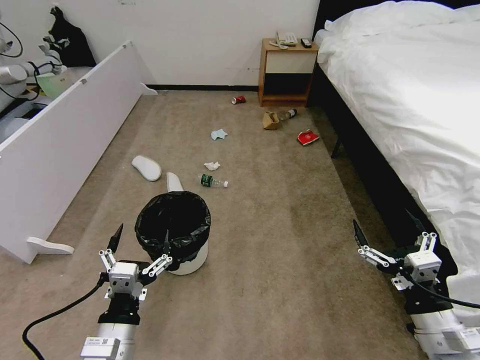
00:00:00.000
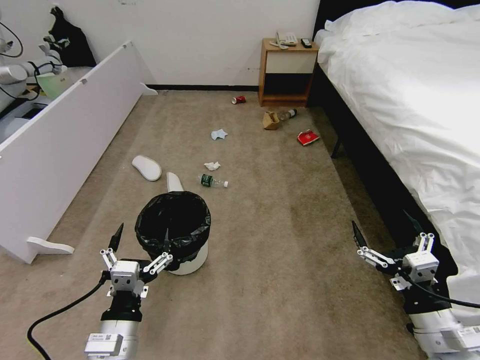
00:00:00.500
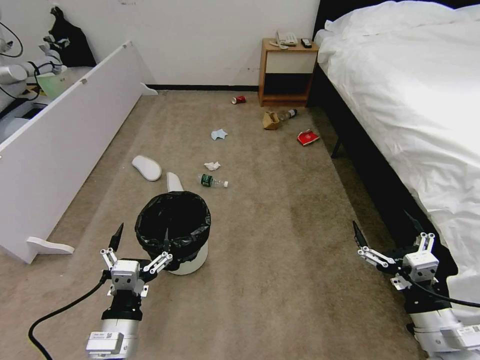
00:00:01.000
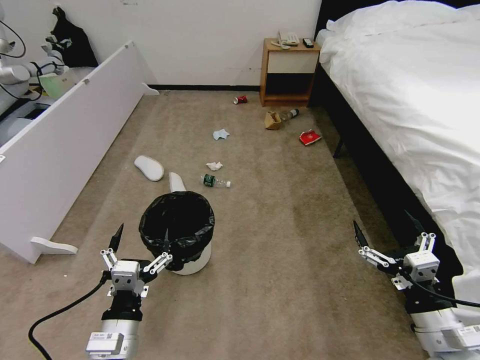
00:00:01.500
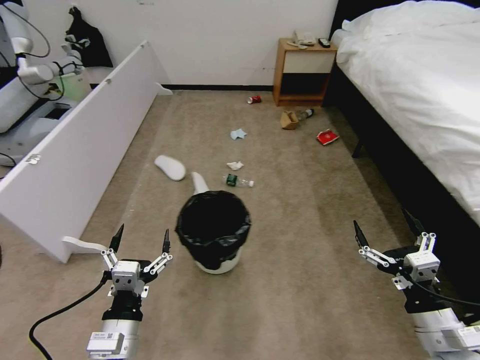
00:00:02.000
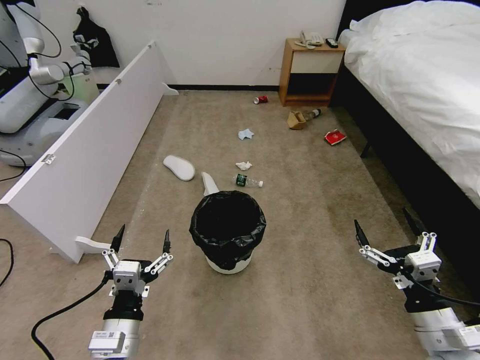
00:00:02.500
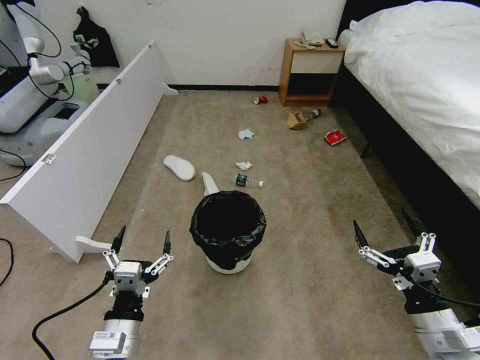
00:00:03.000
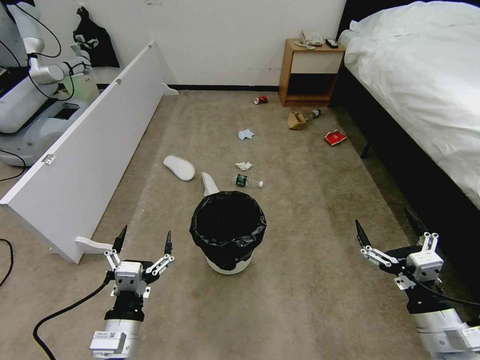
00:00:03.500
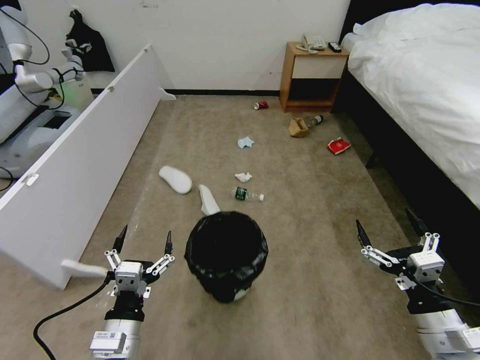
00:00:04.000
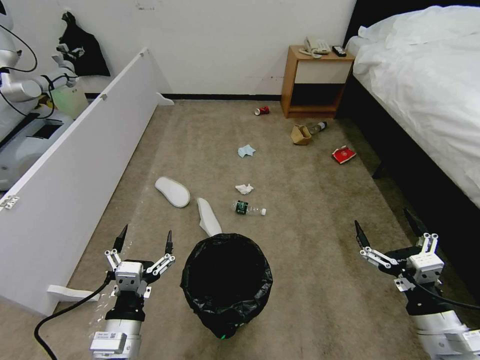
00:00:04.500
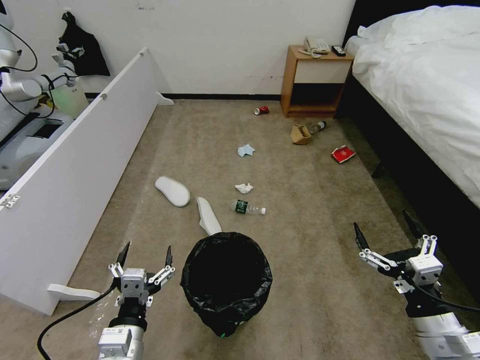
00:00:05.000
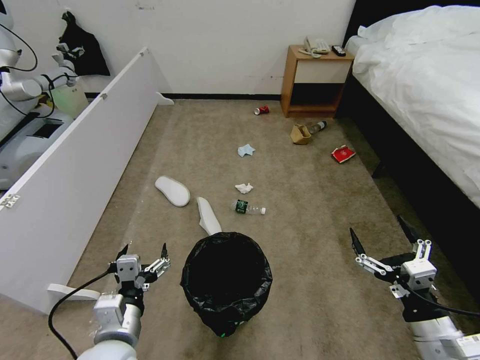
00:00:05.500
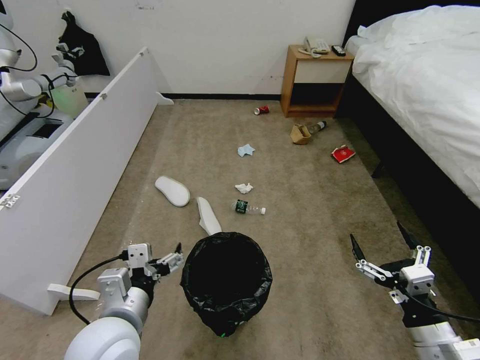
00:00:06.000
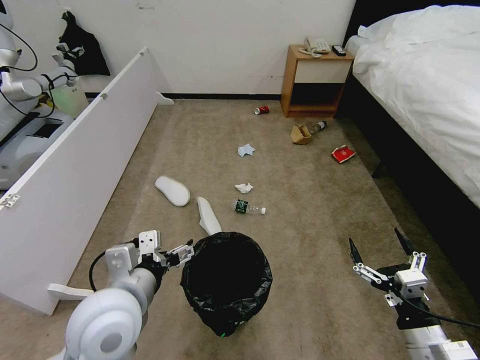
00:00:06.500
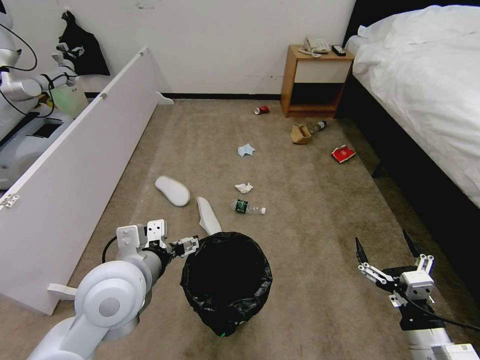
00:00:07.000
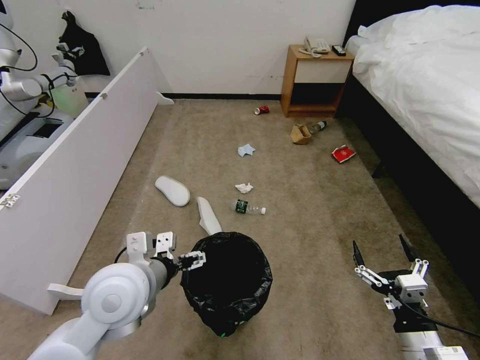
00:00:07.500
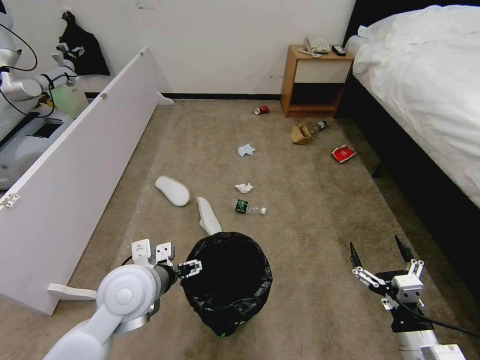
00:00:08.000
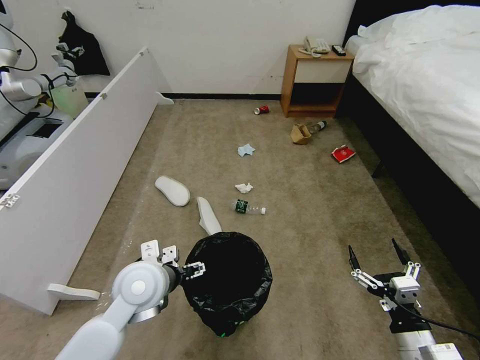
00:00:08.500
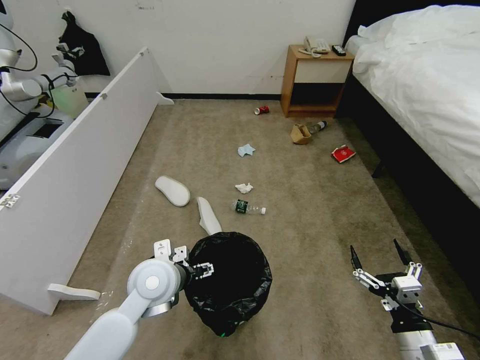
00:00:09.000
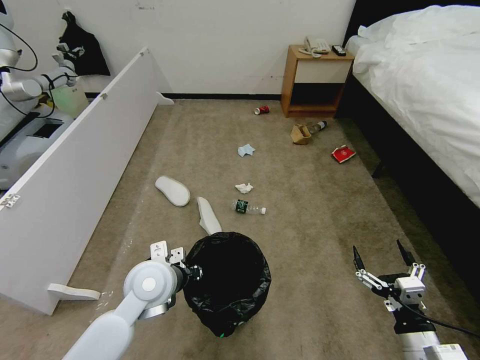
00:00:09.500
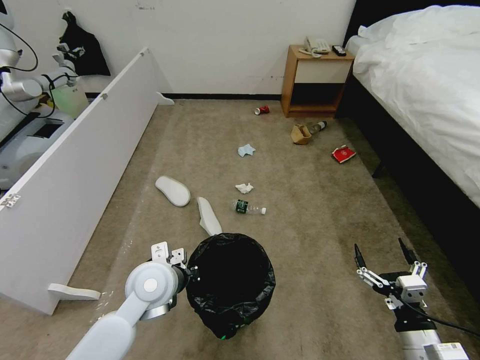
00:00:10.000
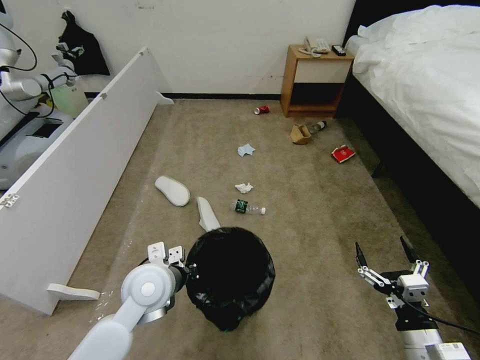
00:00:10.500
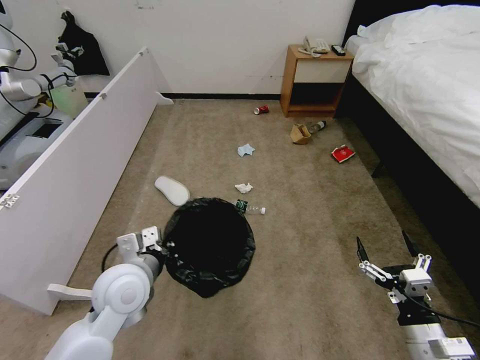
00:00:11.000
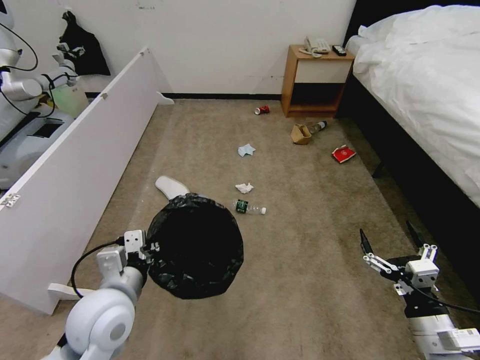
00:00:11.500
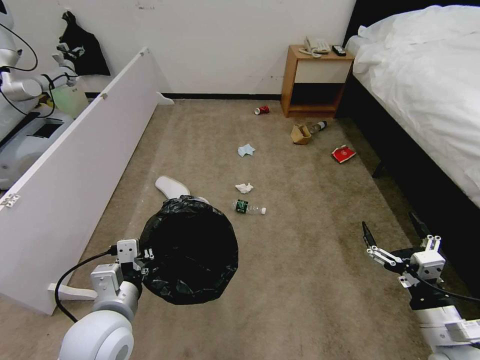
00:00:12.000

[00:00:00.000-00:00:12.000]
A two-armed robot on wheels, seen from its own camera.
Task of the whole recording: Pick up the trash bin, then pick up the garbage from the floor and place it into the trash bin.
00:00:04.000 to 00:00:06.000: The left gripper is displaced upward by approximately 10 cm.
00:00:06.000 to 00:00:08.000: The left gripper travels forward by some 10 cm.
00:00:08.000 to 00:00:10.000: The left gripper shifts by some 5 cm, and closes.
00:00:10.000 to 00:00:12.000: The right gripper travels upward by some 5 cm. The left gripper goes roughly 10 cm backward.

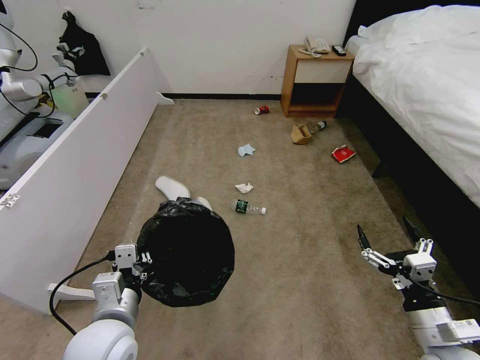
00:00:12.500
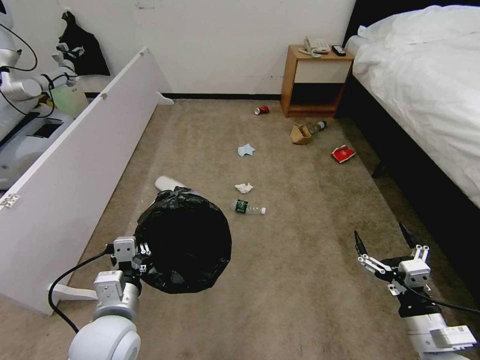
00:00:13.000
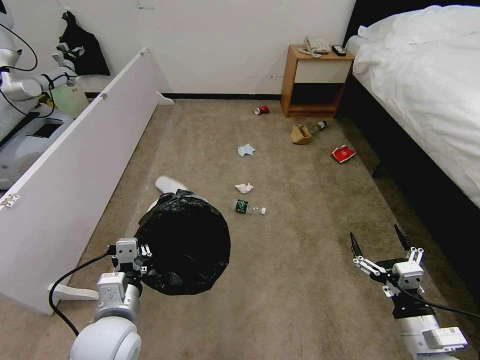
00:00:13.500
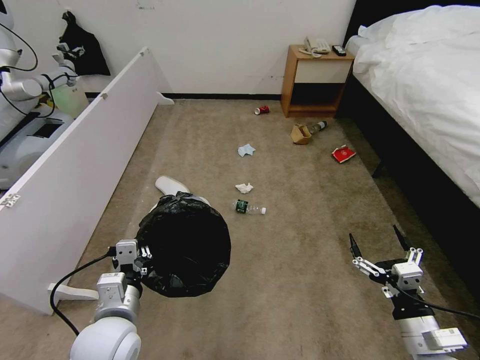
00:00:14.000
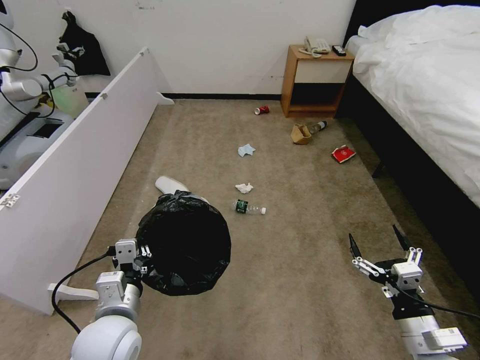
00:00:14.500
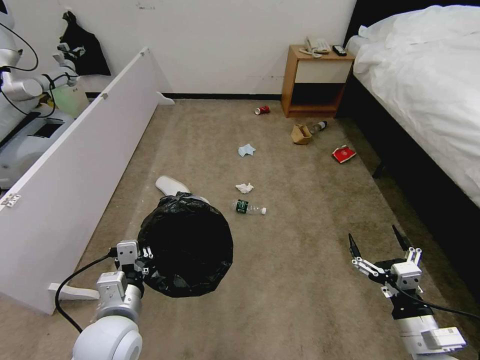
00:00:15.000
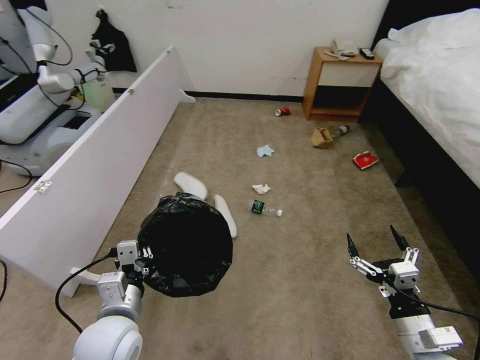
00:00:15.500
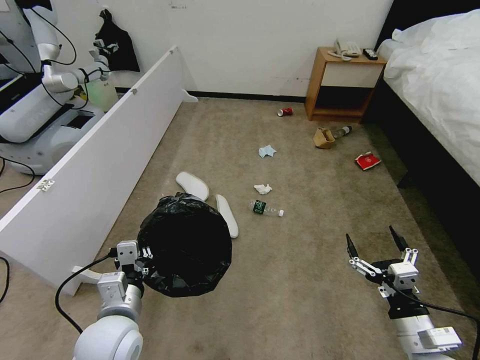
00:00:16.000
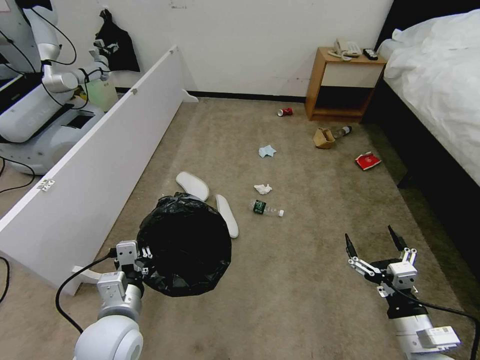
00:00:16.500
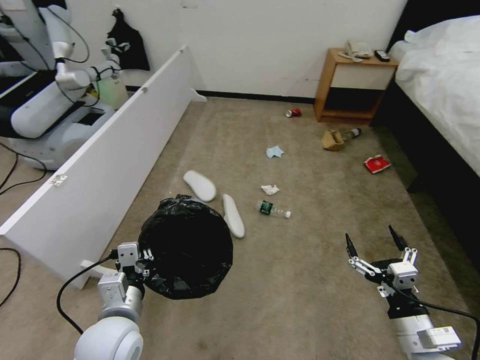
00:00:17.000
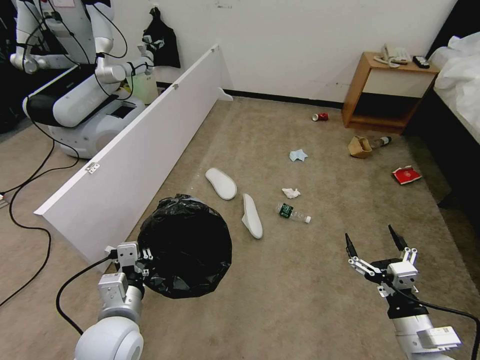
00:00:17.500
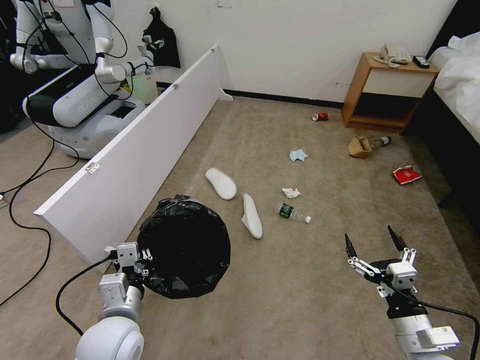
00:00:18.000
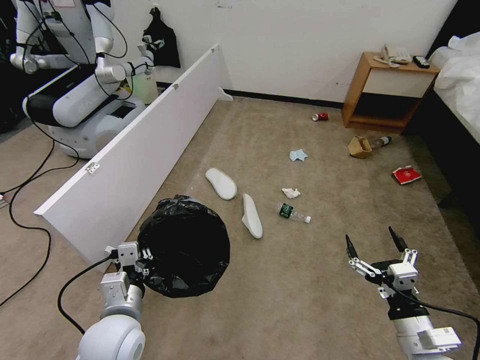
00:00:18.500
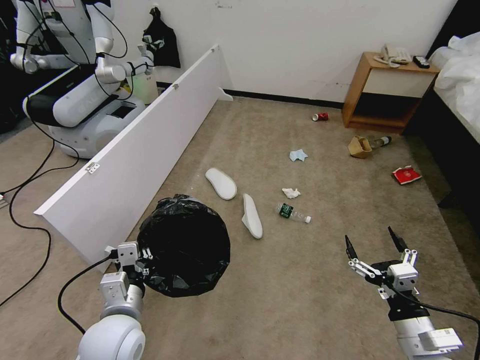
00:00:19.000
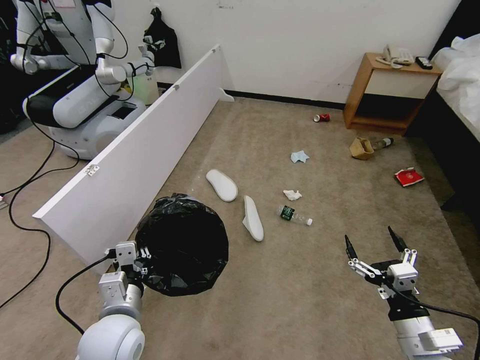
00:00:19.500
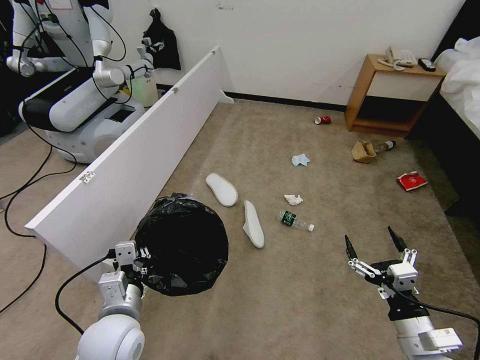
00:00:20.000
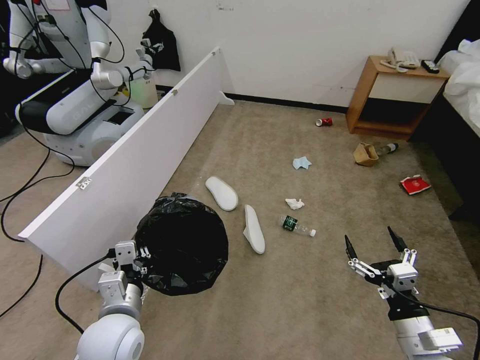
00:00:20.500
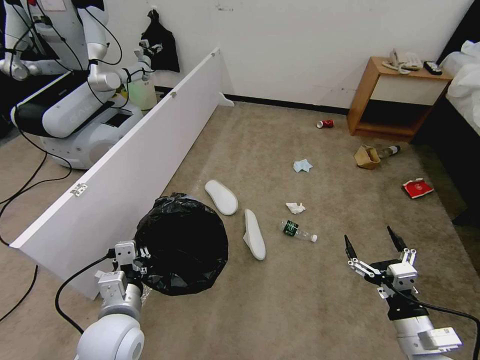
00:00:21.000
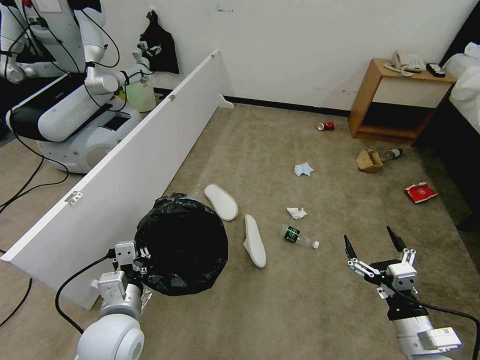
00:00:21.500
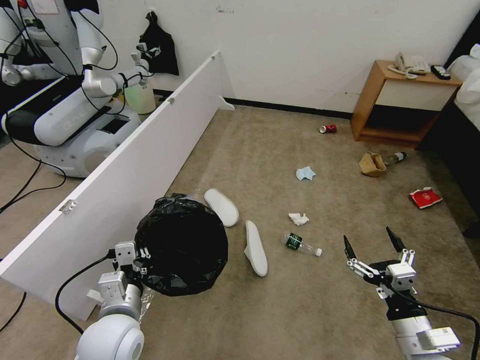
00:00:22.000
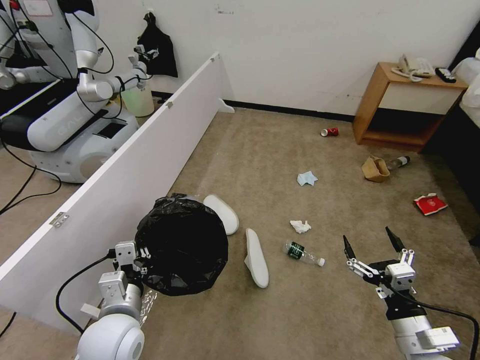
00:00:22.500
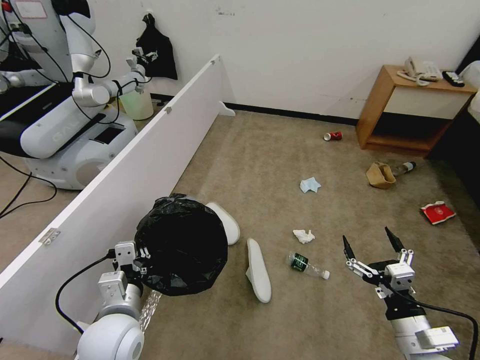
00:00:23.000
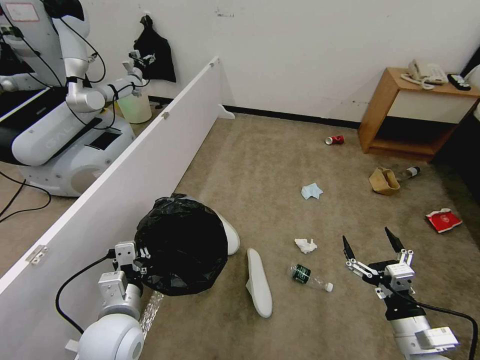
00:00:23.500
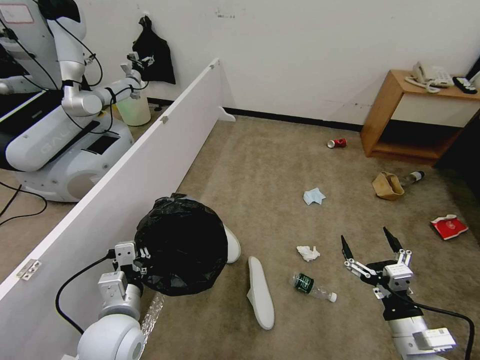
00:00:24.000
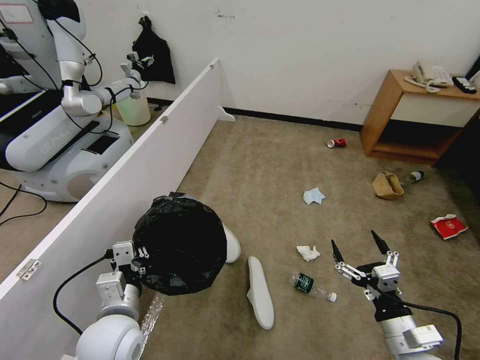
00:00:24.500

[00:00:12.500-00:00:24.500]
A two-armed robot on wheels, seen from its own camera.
Task of the whole recording: Pick up the trash bin, then pick up the garbage from the floor and place it into the trash bin.
00:00:12.500 to 00:00:14.500: The grippers move only a little.
00:00:18.500 to 00:00:20.500: Neither gripper changes place.

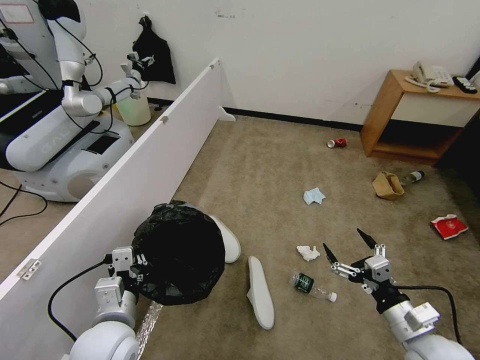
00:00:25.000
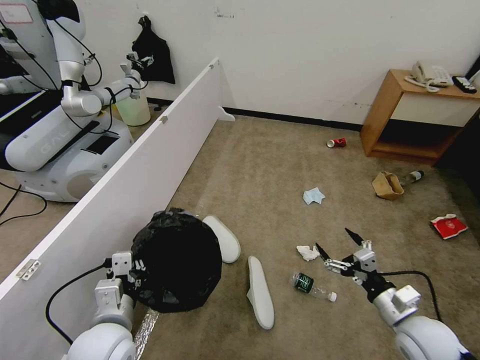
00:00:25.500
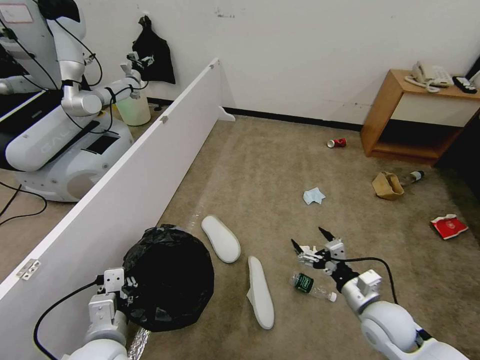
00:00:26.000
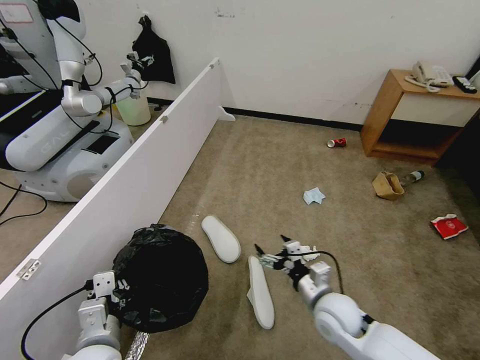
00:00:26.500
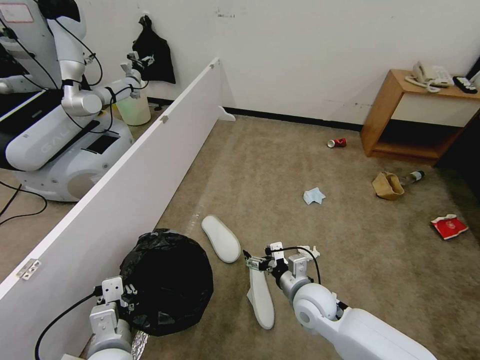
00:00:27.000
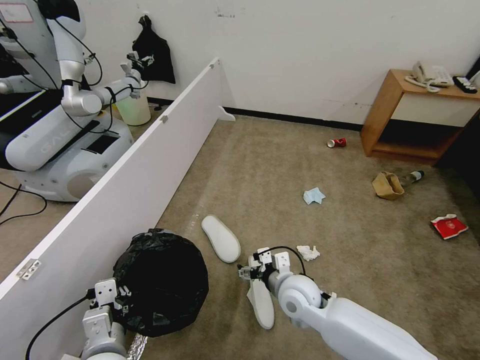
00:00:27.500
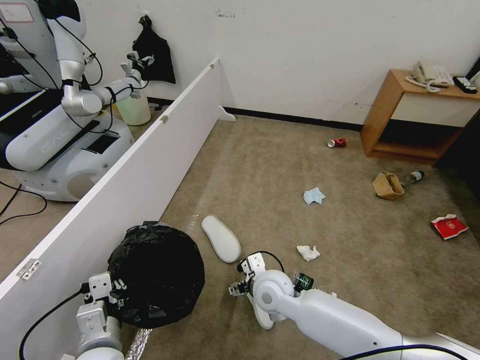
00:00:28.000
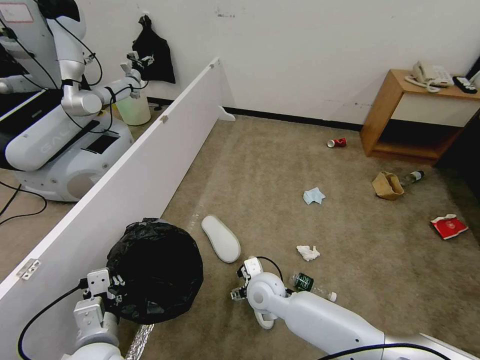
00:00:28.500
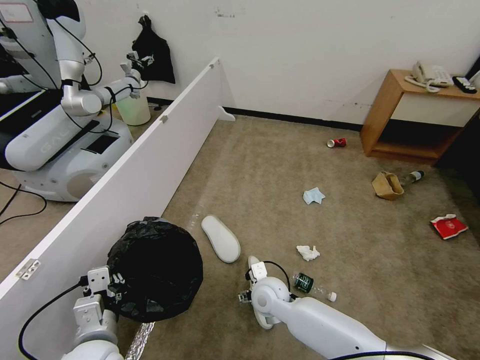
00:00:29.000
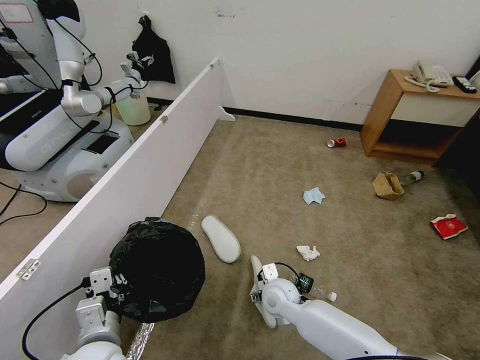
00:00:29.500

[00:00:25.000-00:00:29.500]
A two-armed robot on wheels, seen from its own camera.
Task of the whole recording: Pick up the trash bin, then pick up the garbage from the floor and place it into the trash bin.
00:00:25.000 to 00:00:27.000: The right gripper heads to the left and forward, covering roughly 20 cm.
00:00:27.000 to 00:00:29.500: The right gripper goes approximately 10 cm to the left.
